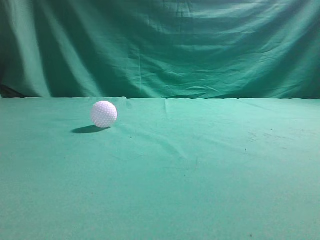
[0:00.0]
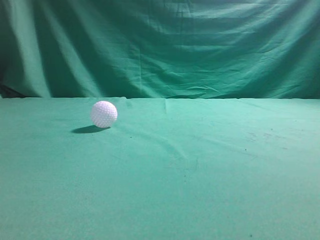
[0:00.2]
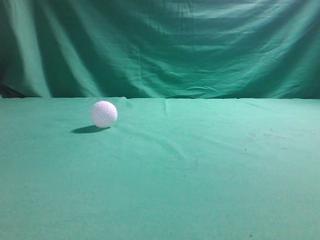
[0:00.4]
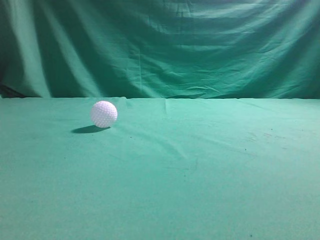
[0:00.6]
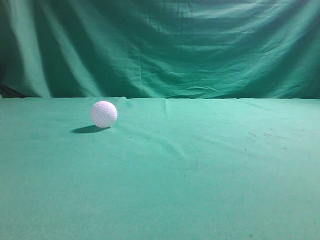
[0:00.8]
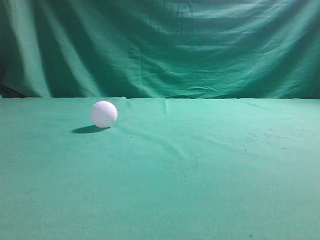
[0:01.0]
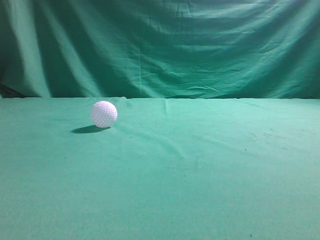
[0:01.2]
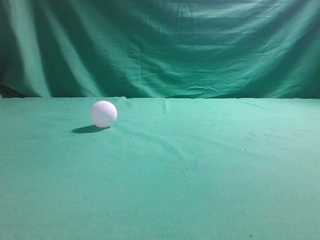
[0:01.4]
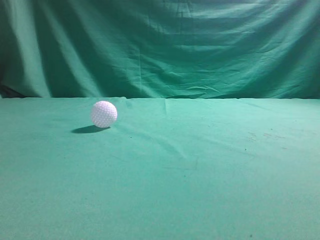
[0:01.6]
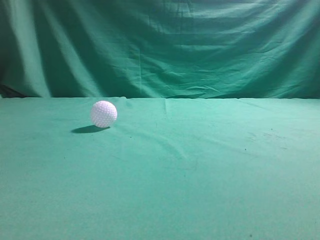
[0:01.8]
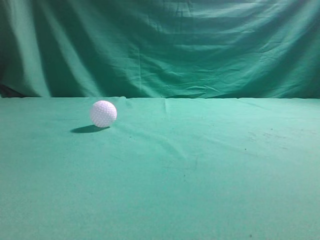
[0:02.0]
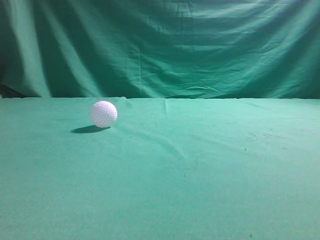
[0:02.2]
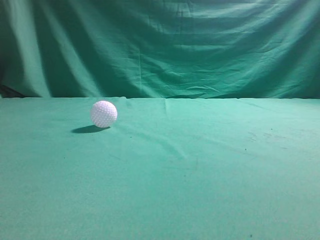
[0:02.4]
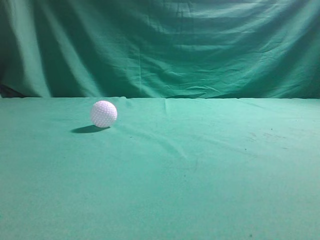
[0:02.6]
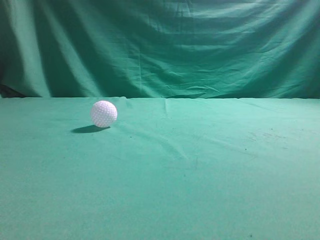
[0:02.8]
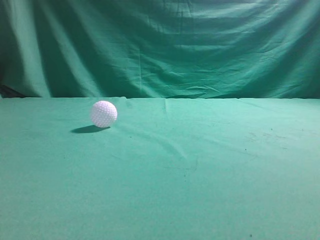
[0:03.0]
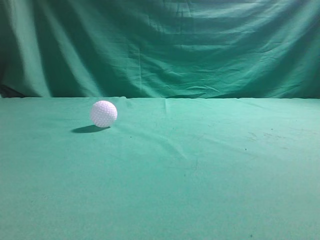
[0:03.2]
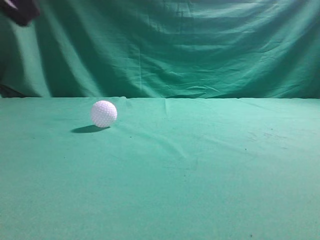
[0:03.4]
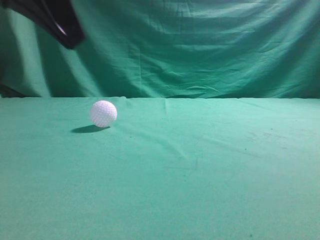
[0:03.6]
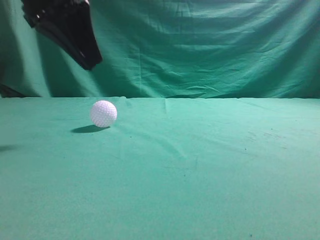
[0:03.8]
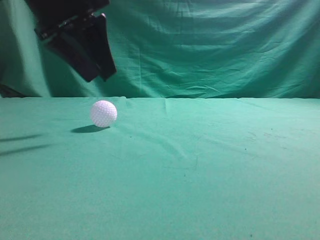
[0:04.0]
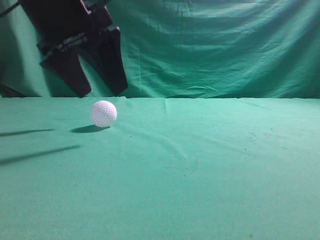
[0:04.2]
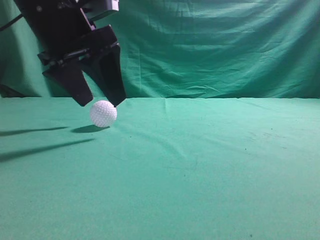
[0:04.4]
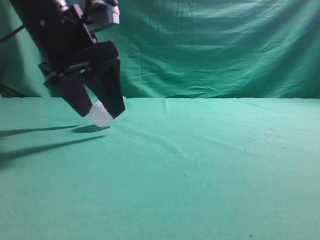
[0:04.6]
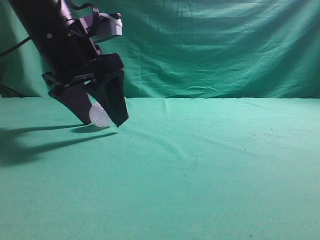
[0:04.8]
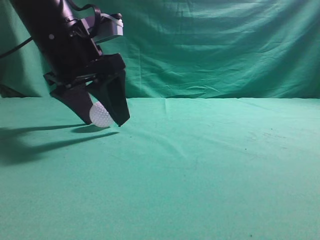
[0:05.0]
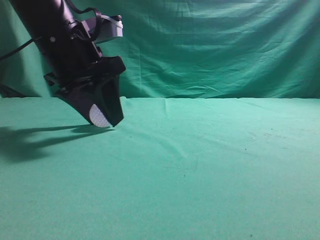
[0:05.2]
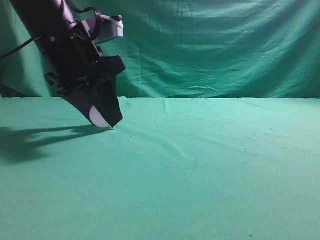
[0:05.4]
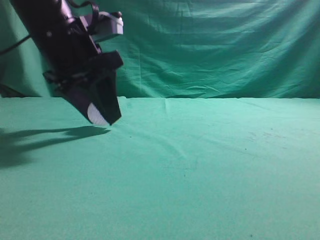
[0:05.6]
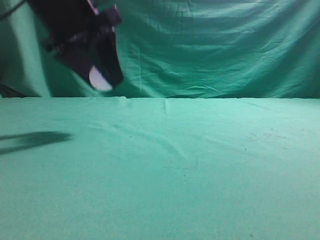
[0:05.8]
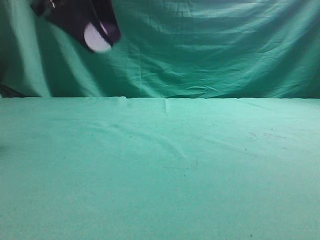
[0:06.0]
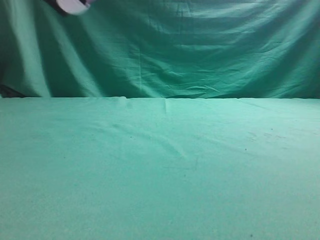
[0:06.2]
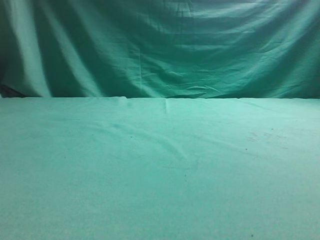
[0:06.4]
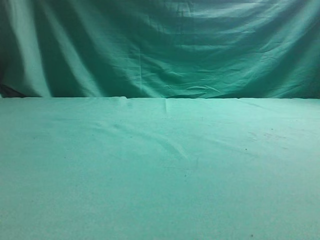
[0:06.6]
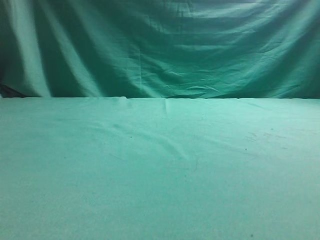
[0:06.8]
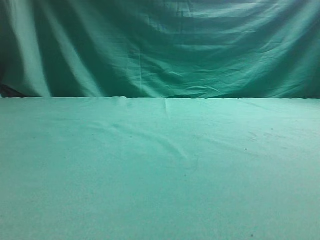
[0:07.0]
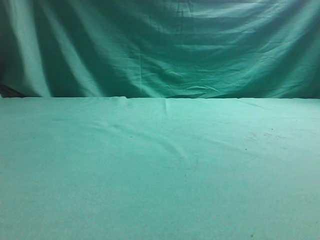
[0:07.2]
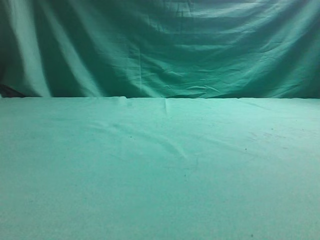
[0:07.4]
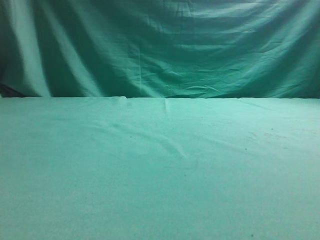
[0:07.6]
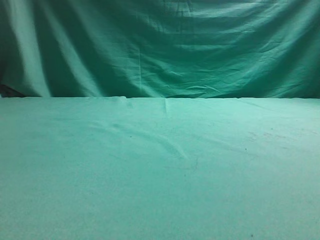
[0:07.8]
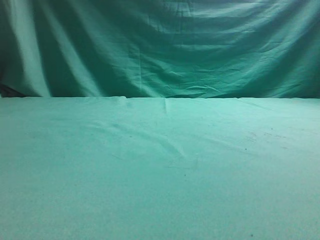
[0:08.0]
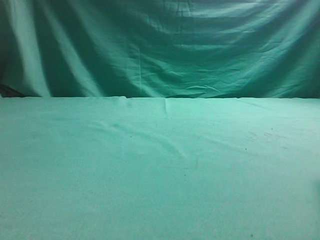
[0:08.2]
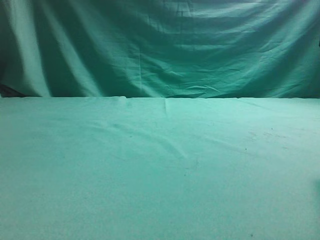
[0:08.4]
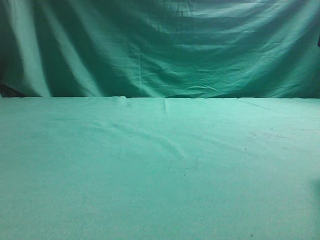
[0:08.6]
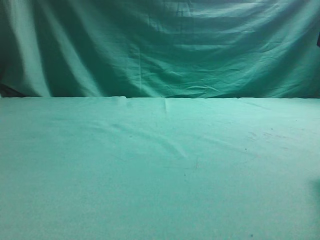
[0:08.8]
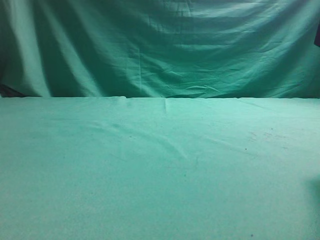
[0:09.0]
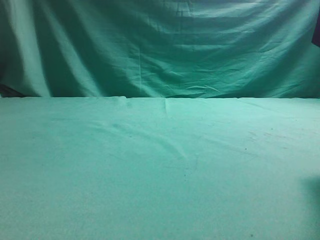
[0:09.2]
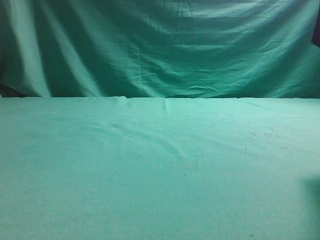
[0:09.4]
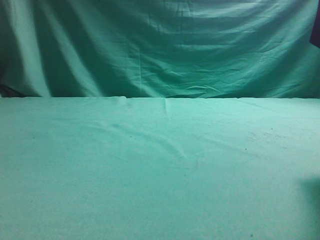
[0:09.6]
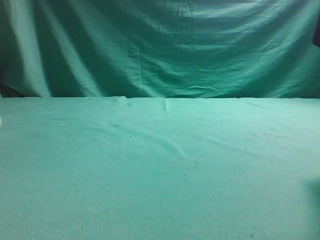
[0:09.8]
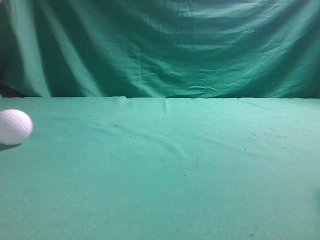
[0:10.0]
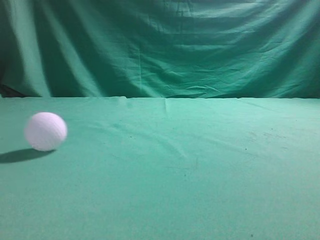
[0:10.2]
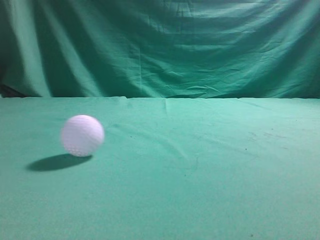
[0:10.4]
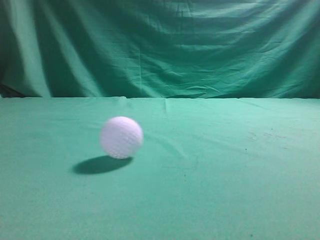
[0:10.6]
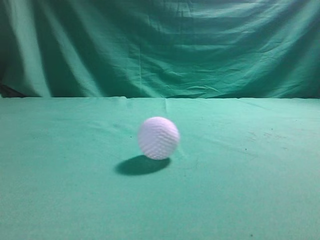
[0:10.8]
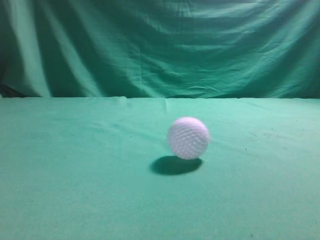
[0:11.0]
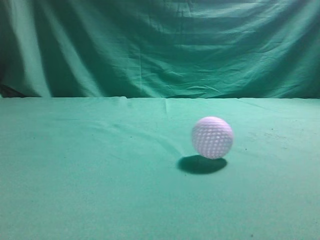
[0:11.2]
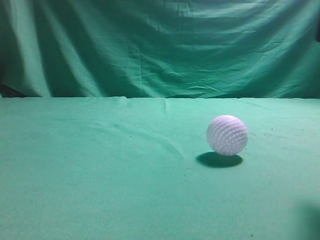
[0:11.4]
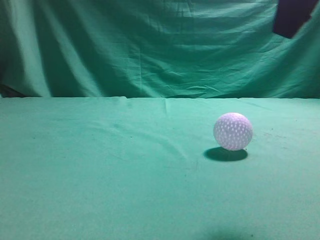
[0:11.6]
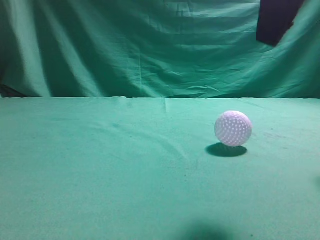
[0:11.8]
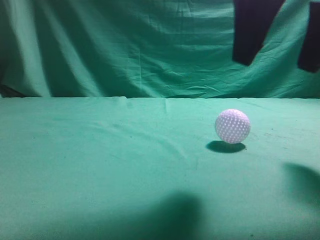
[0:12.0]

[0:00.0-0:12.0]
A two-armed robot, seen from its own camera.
Task of the whole recording: pick up the ball and place it on the plate, then pick up the ball from the plate and put it in the center of the table.
Step, 0:00.0 to 0:05.6: Grab the spherical object with your left arm.
Step, 0:05.8 to 0:09.2: Place the sphere on the white object.
0:03.0 to 0:04.4: The left gripper shifts roughly 25 cm forward and to the right, and opens up.
0:04.4 to 0:06.0: The left gripper heads upward, covering about 5 cm, and closes up.
0:06.0 to 0:07.6: The left gripper heads to the left, covering some 20 cm.
0:07.6 to 0:09.0: The right gripper shifts roughly 5 cm downward.
0:09.0 to 0:10.4: The left gripper is displaced upward by some 20 cm, and closes.
0:10.4 to 0:12.0: The right gripper is displaced to the left by approximately 5 cm, and opens its fingers. Meanwhile the left gripper heads backward, covering some 15 cm.

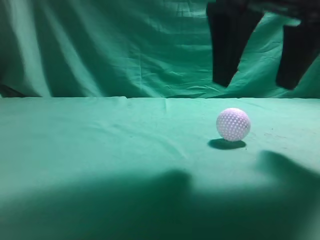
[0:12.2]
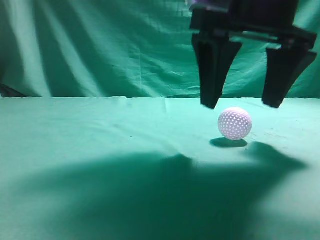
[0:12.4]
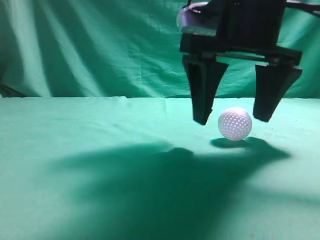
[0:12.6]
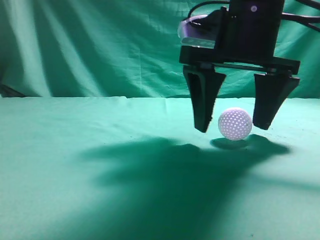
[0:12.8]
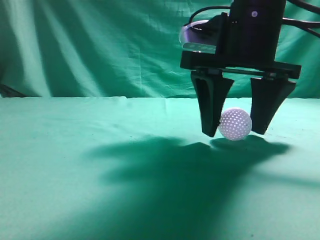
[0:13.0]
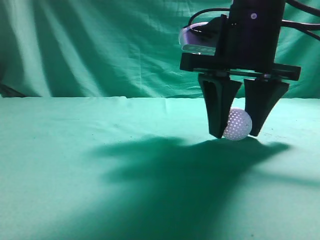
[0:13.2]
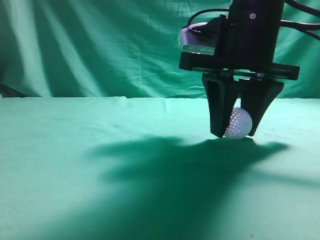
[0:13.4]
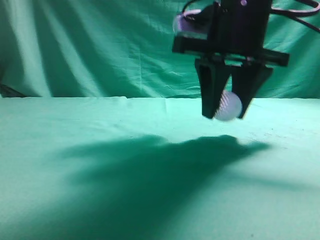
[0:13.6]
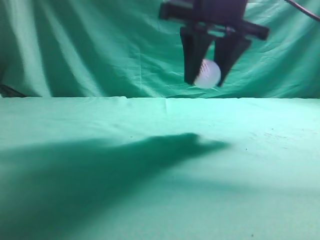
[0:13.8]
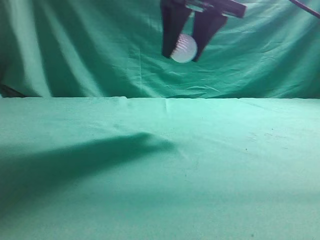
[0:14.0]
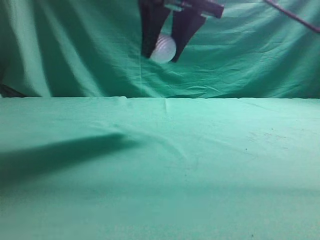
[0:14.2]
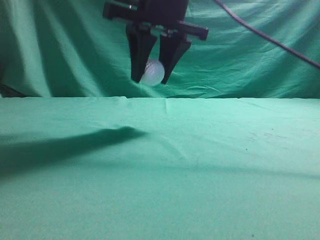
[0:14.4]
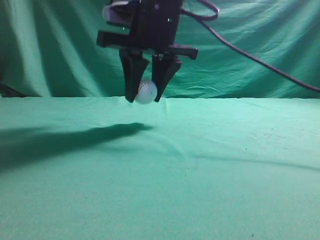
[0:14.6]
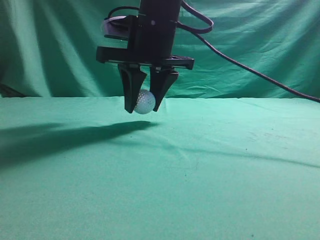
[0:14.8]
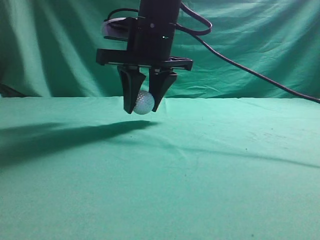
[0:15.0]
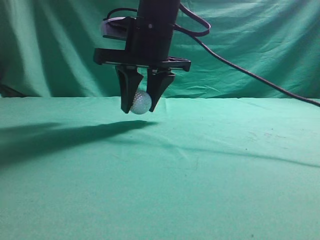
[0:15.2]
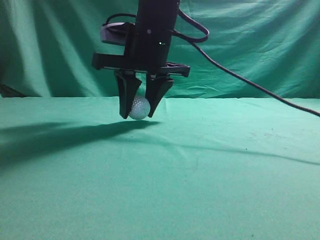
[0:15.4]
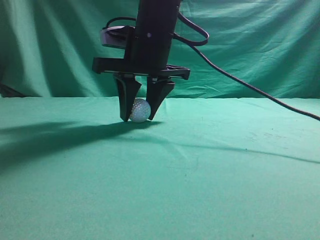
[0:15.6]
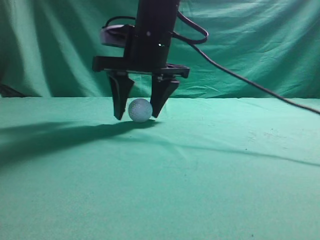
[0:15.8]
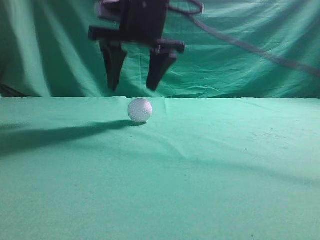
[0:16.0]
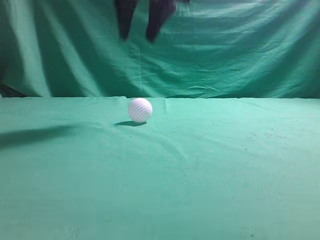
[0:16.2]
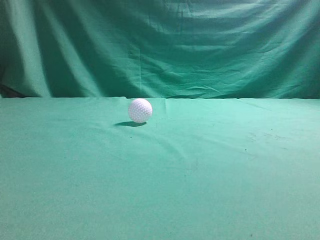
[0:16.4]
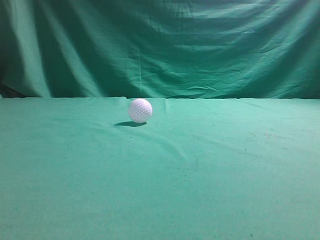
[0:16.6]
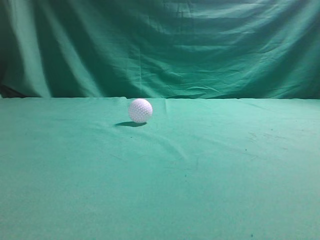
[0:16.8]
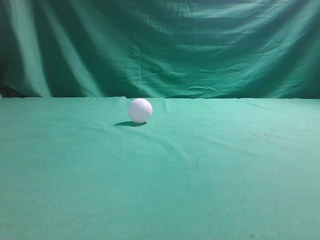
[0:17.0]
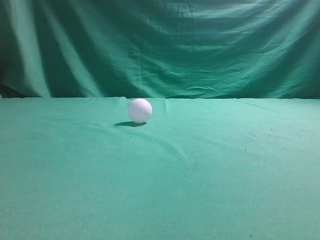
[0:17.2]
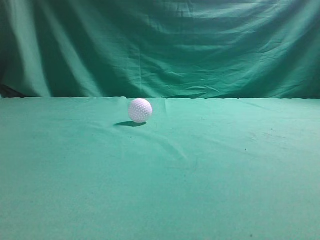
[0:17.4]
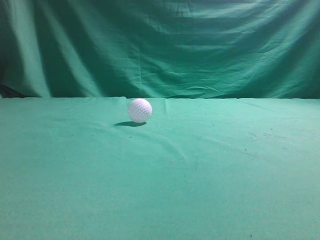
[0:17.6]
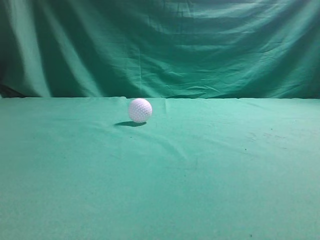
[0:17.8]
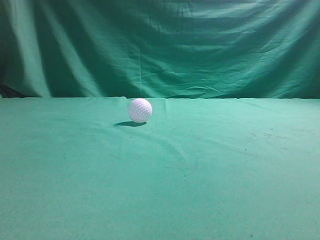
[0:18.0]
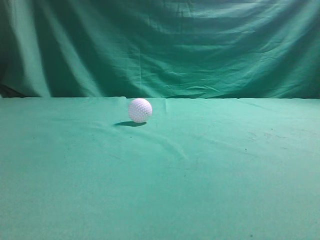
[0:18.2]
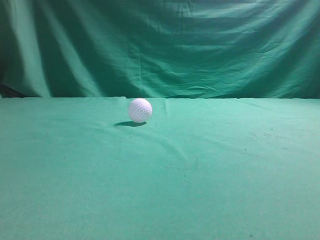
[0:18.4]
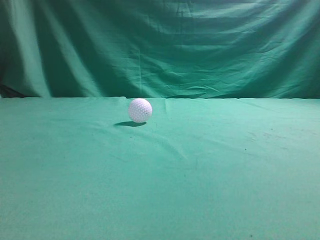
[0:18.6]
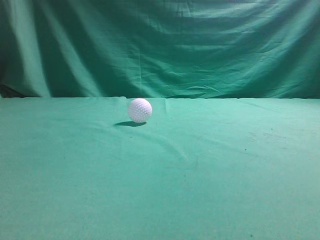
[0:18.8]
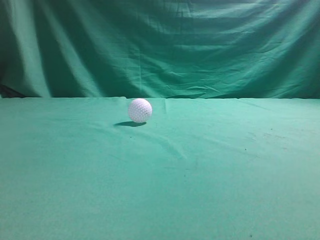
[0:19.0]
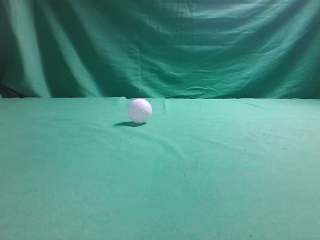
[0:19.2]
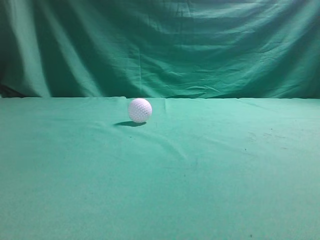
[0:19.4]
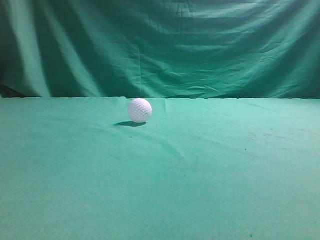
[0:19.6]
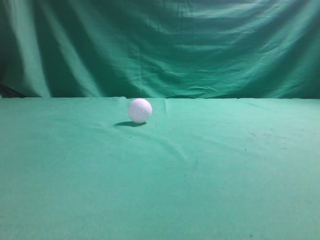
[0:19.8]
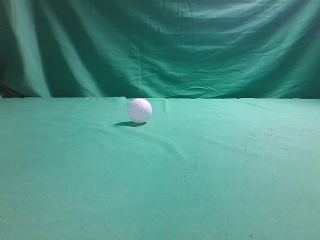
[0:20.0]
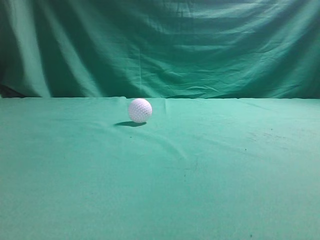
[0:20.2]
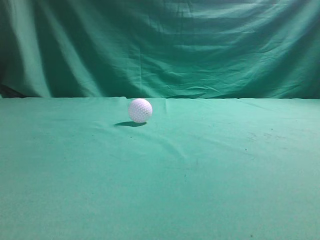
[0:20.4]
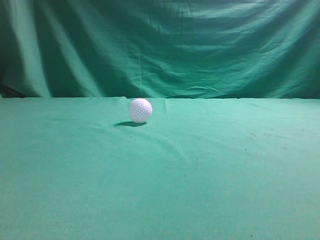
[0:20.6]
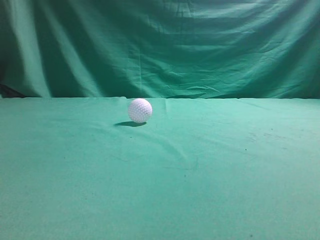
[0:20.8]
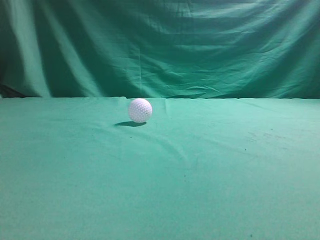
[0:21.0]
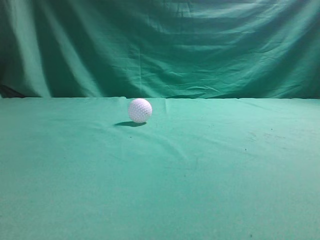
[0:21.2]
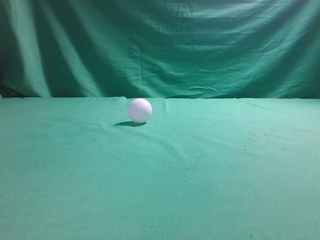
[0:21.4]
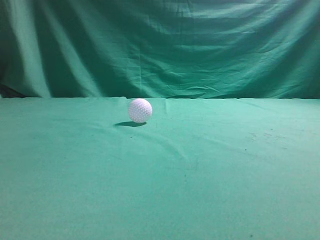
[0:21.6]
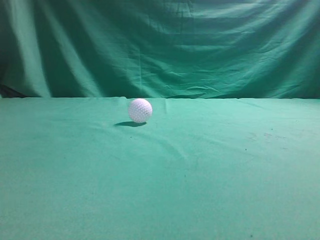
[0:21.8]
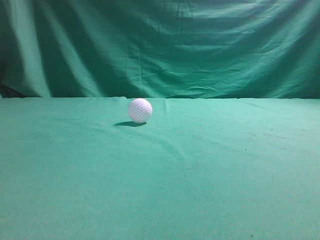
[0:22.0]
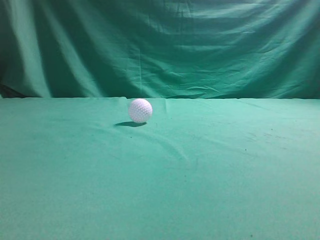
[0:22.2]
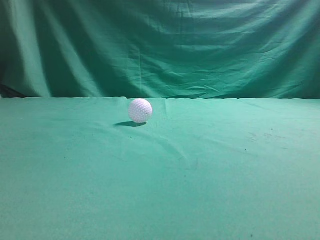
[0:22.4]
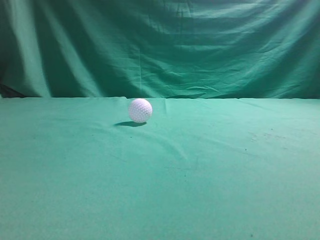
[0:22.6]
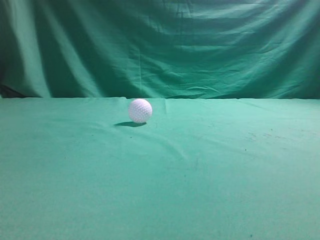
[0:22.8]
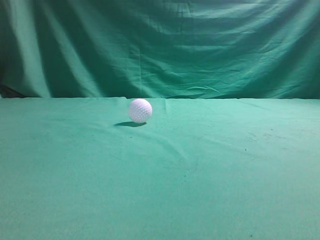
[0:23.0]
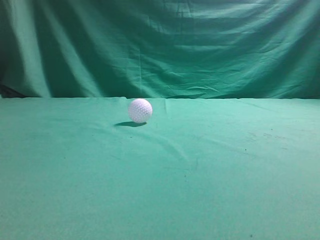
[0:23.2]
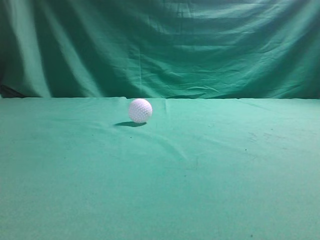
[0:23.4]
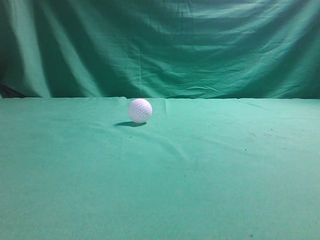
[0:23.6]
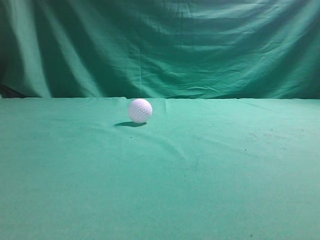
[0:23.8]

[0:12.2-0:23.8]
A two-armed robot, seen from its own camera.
Task of the whole recording: pick up the ball and place it on the plate, then pick up the ball from the plate and put it in the center of the table.
Step, 0:13.6 to 0:16.0: Put the picked-up object on the table.
0:12.2 to 0:13.6: The right gripper travels forward by some 5 cm, and closes up.
0:13.6 to 0:15.0: The right gripper is displaced to the left and forward by approximately 15 cm, while the left gripper travels backward and downward by about 10 cm.
0:15.0 to 0:16.6: The right gripper is displaced upward by some 25 cm, and closes up.
